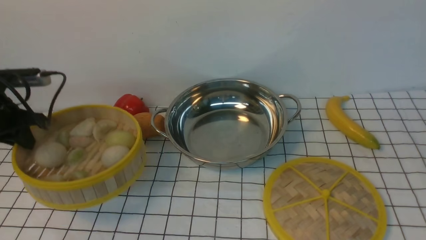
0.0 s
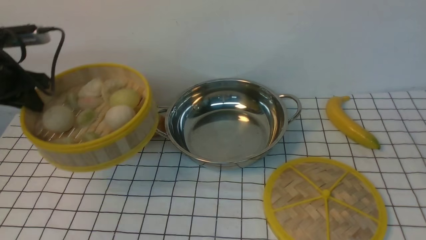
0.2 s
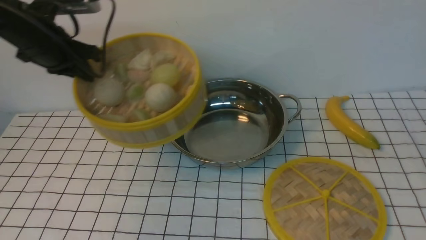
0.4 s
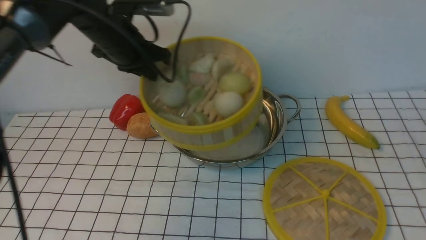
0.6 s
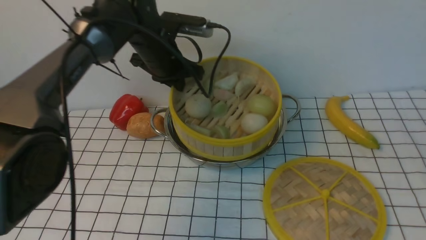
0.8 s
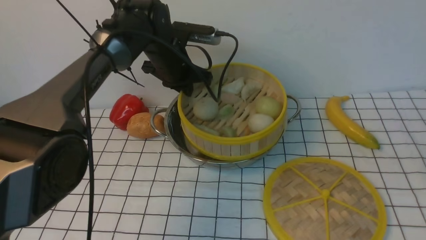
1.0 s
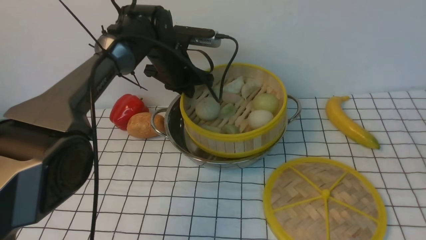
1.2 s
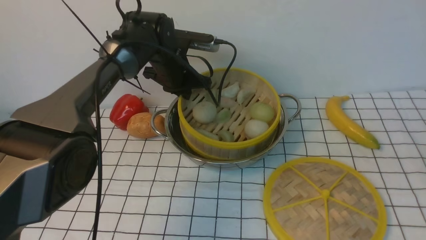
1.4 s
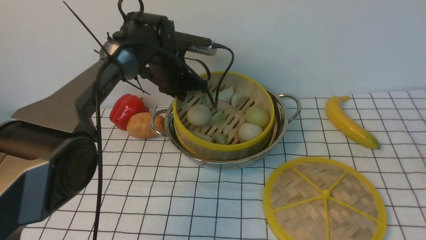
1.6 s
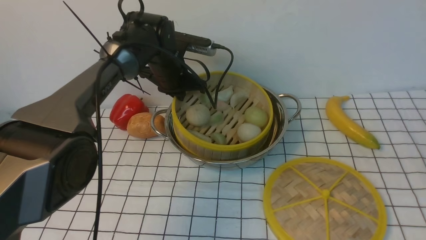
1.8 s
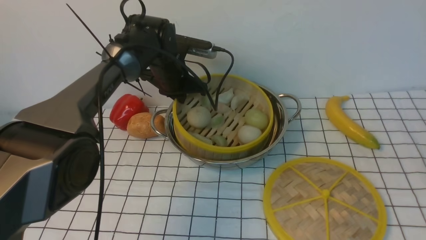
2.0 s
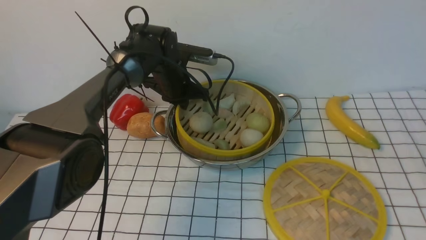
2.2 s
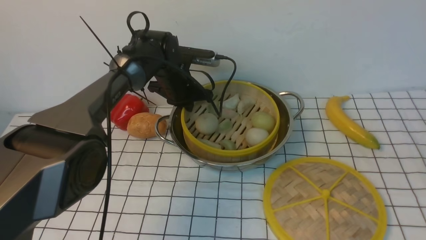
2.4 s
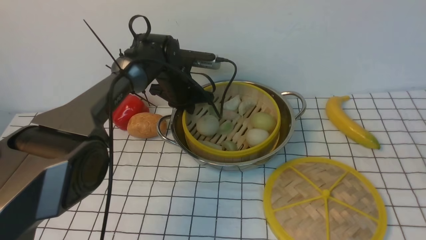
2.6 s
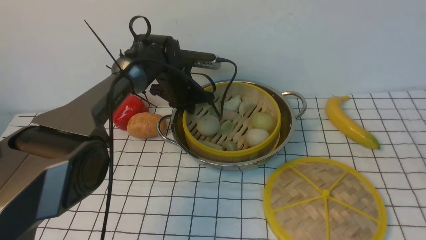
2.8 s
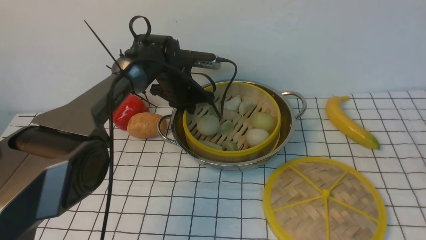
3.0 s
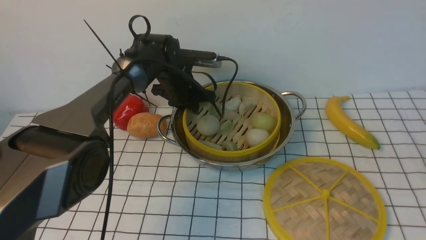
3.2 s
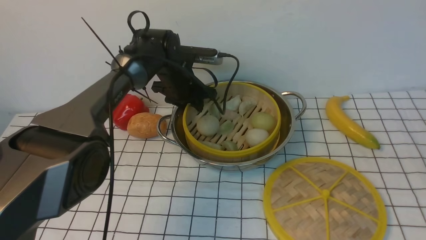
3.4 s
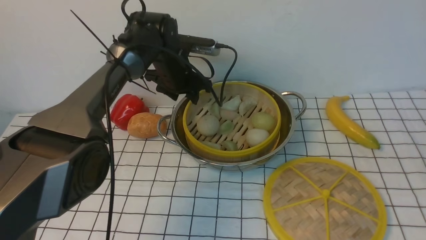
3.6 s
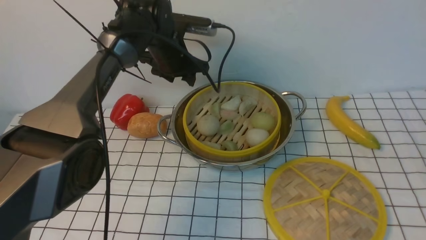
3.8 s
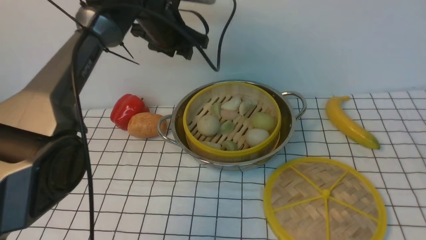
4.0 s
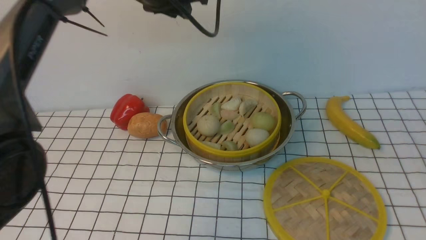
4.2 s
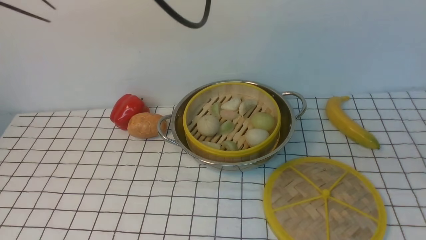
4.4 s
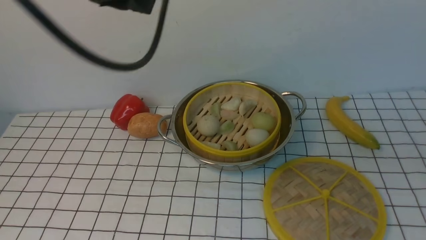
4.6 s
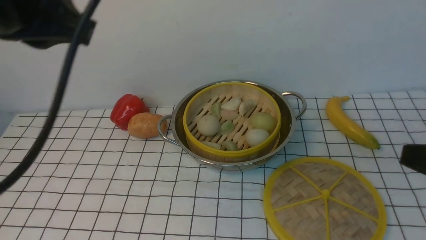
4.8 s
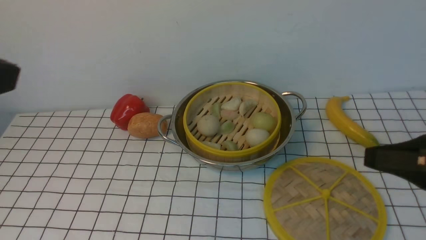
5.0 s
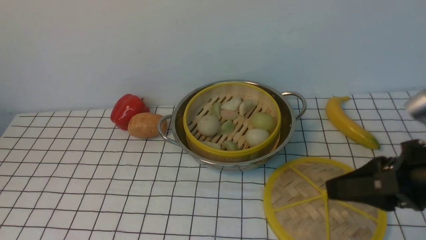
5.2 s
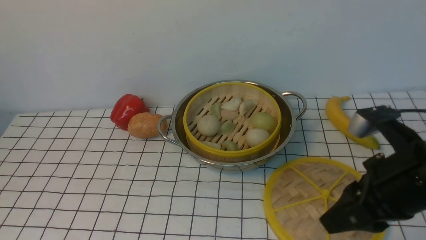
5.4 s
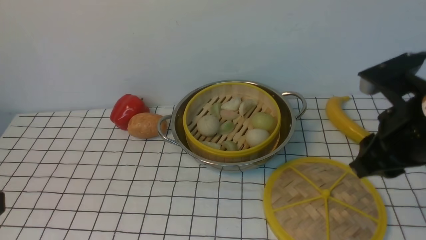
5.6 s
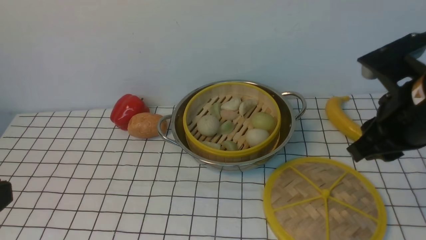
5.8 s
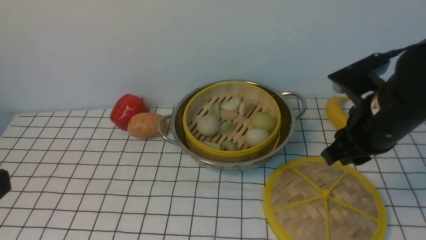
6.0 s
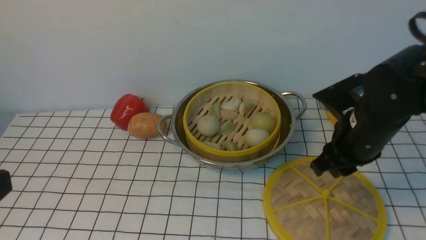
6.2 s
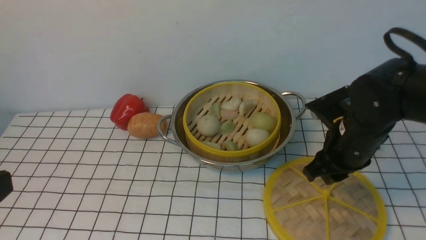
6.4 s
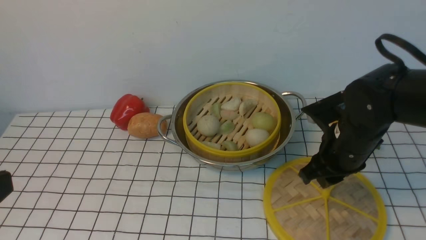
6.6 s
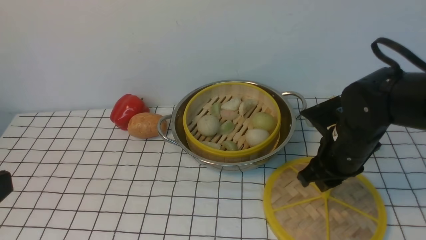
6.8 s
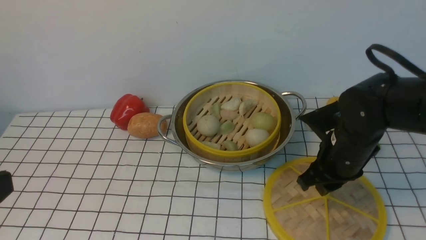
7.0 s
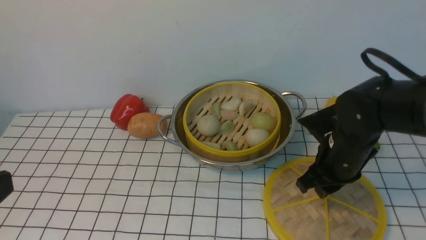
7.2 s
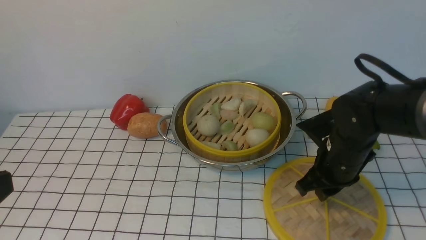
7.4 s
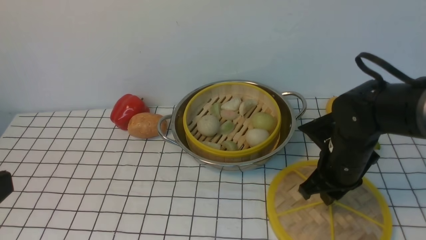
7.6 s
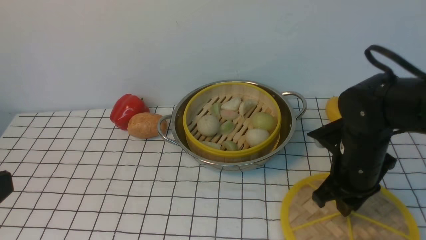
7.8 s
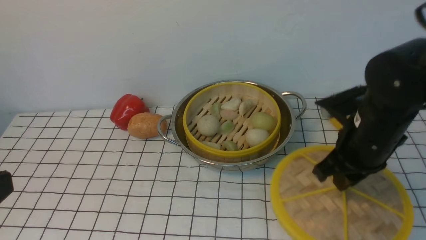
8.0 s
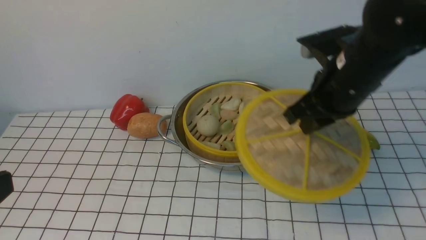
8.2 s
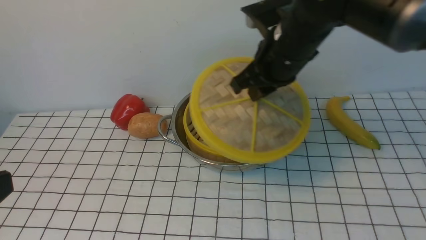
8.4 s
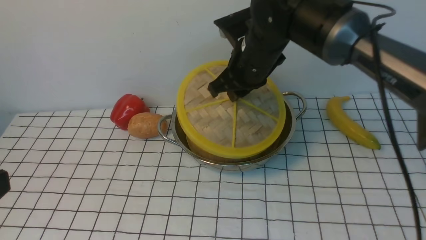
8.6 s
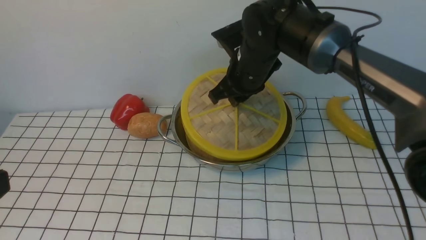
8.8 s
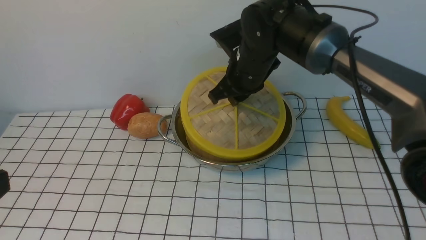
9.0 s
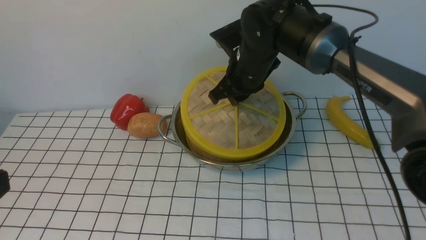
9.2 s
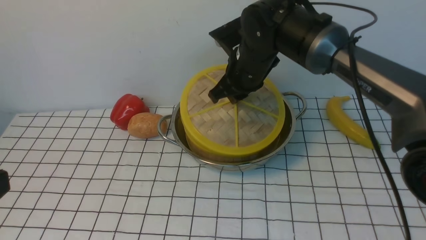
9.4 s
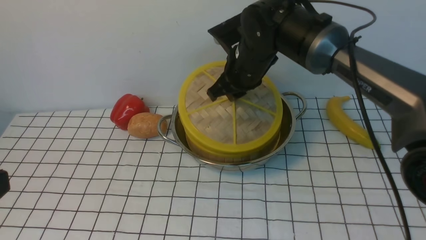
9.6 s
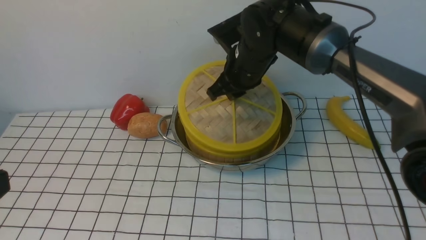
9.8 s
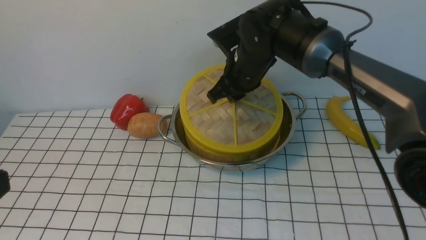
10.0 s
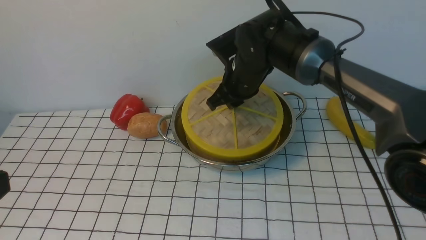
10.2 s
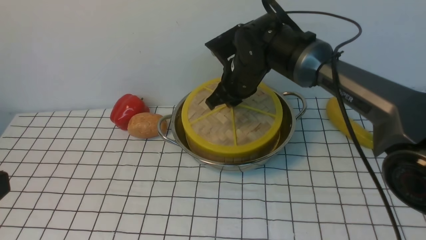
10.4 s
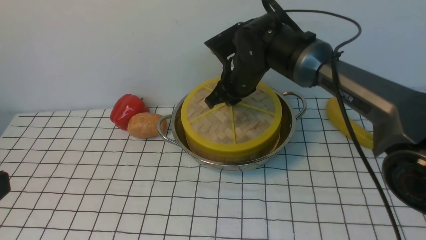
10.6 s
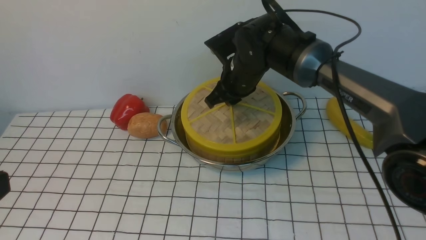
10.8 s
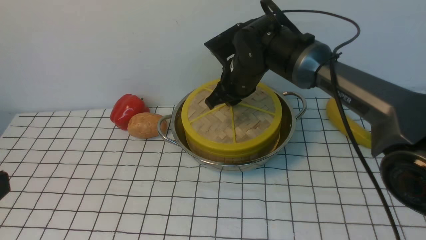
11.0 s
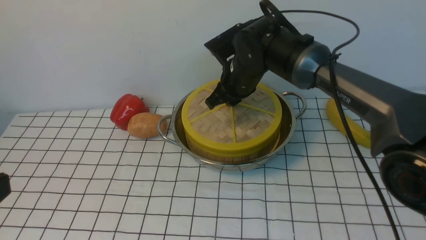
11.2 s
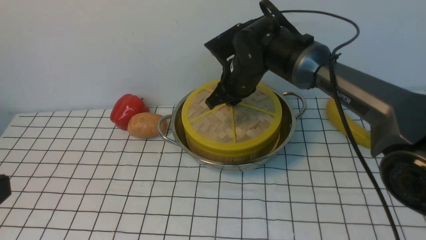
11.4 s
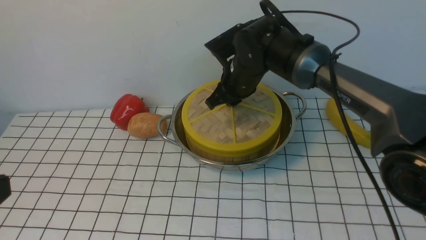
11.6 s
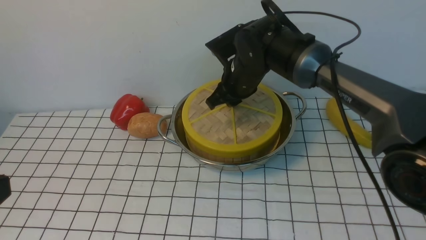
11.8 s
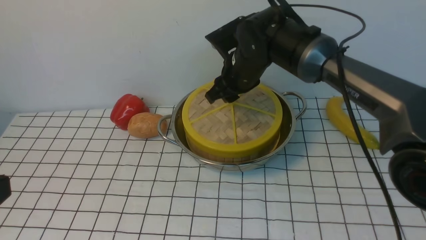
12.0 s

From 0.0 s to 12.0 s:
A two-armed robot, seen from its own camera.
Task of the whole recording: place the steamer in the pot on the white tablecloth, and put the lid on the steamer.
Step, from 0.0 s to 3.6 s: use the left arm to put the steamer into the iron steamer pot in the middle.
Step, from 3.8 s to 7.8 s: use the right arm to lift the lid of the steamer.
From 0.0 s to 1.6 s: The left gripper moves to the right and forward, some 30 cm.
From 1.6 s to 3.0 s: The grippers move only a little.
From 3.0 s to 4.4 s: The left gripper heads upward and backward, covering about 30 cm, and opens, then closes once more.
From 4.4 s to 6.0 s: The left gripper is displaced backward by approximately 30 cm. The right gripper shifts some 20 cm forward and to the left.
From 6.0 s to 7.6 s: The right gripper heads downward, covering roughly 10 cm.
From 7.6 s to 9.0 s: The right gripper moves to the left, forward and upward, about 20 cm.
From 9.0 s to 10.4 s: There are only small adjustments of the grippers.
From 10.4 s to 12.0 s: The right gripper opens up.

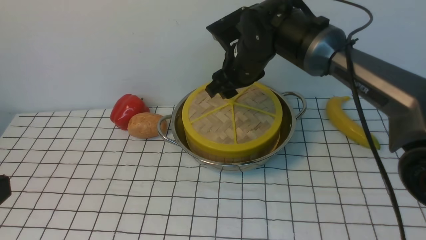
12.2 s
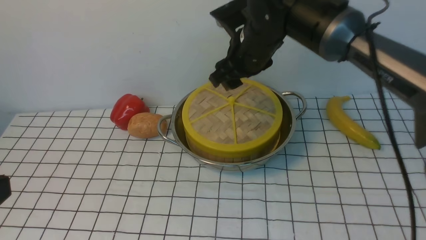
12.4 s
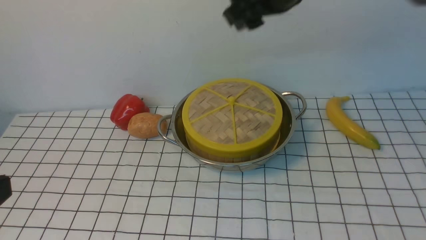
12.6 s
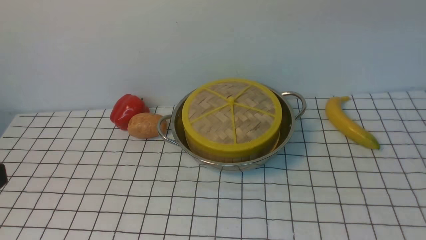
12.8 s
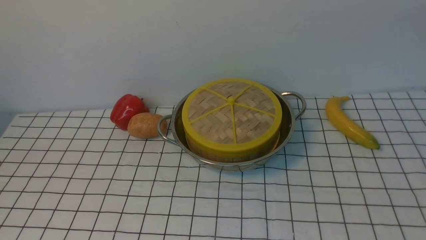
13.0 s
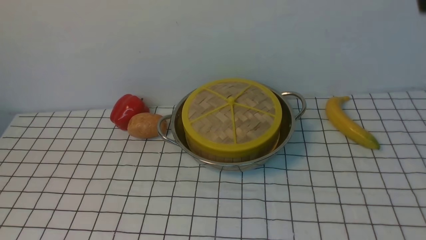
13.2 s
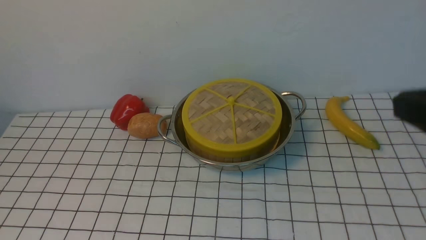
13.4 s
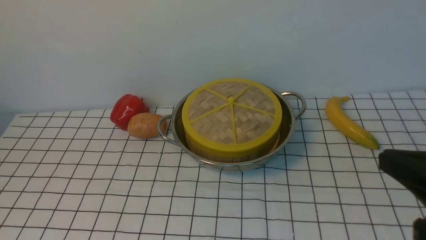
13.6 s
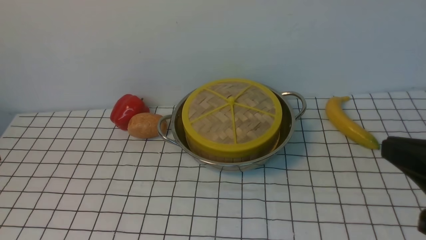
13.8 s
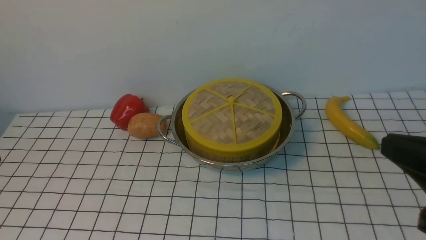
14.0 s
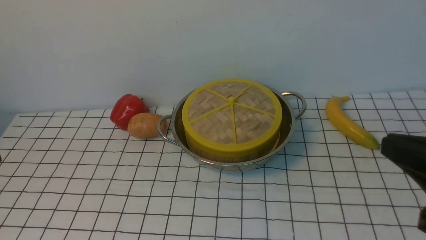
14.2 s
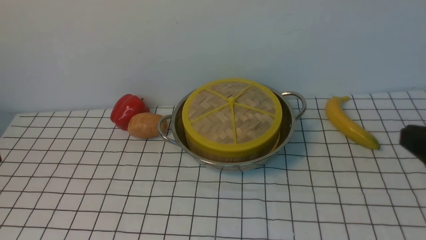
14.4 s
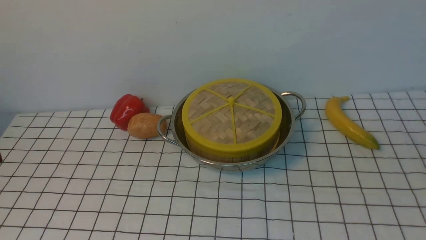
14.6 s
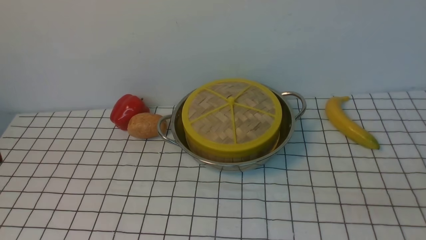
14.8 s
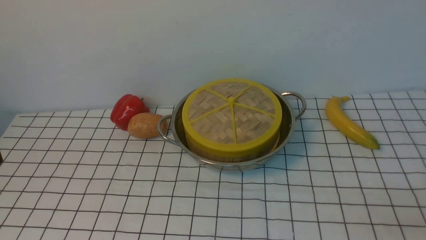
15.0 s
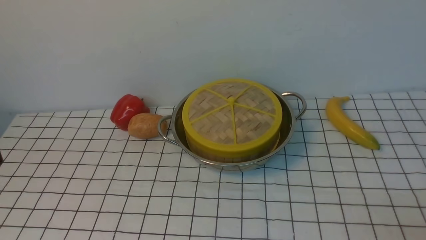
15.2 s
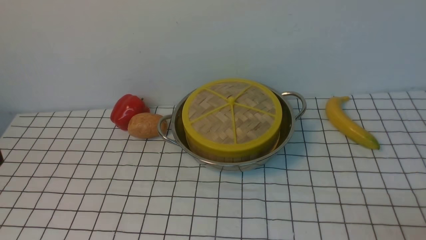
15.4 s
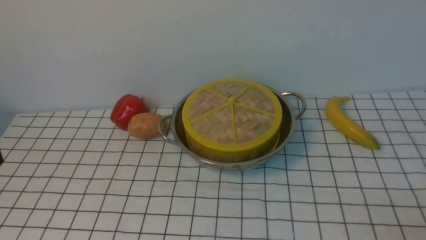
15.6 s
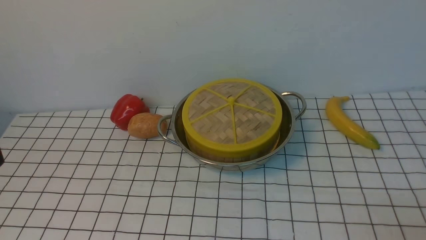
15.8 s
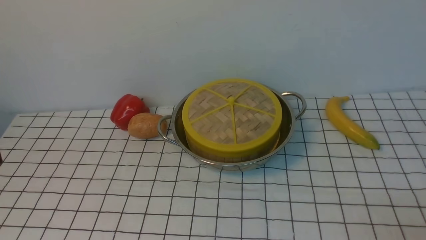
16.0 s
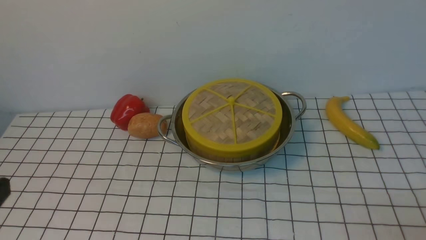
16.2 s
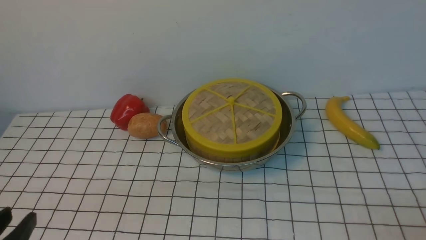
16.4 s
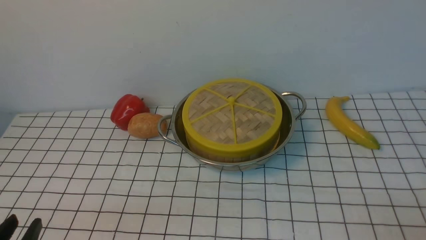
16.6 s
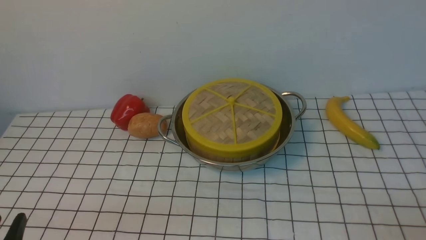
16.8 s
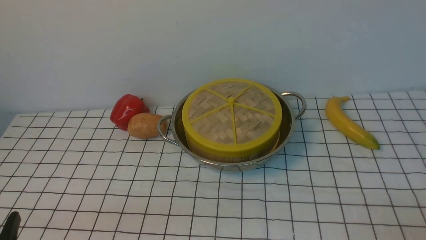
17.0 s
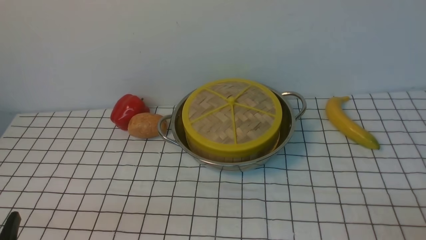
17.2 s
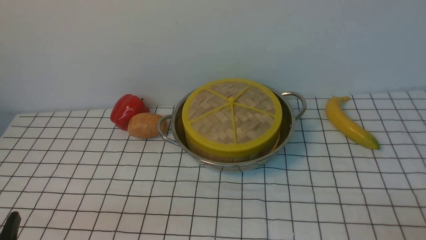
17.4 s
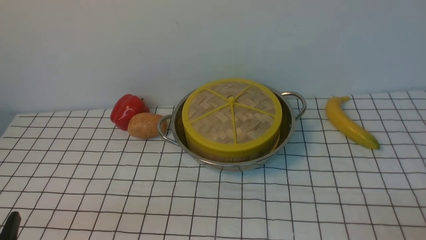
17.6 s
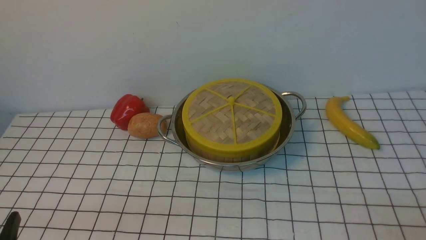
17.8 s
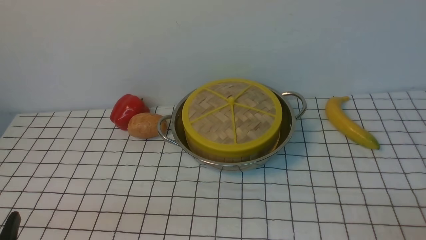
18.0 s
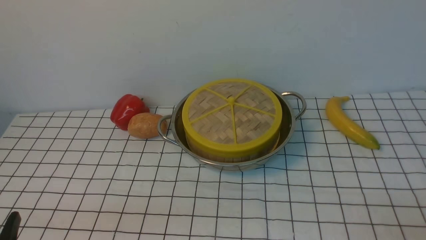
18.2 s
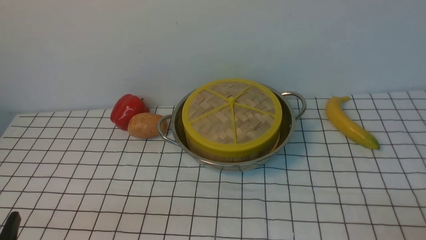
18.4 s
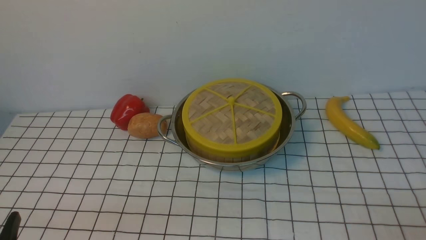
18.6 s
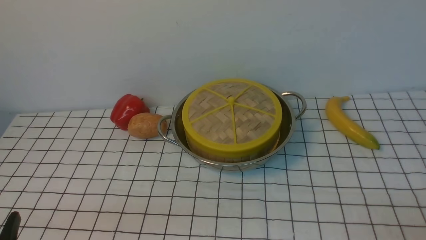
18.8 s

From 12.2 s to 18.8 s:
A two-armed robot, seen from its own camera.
Task of the whole recording: place the steamer in the pot on the white tablecloth, and put the lid on the steamer.
From 12.2 s to 13.8 s: The right gripper shifts approximately 35 cm backward and to the right, and closes up.
From 13.8 s to 15.4 s: The right gripper travels downward, to the right and backward by about 15 cm.
From 17.2 s to 18.8 s: The two grippers keep their place.
